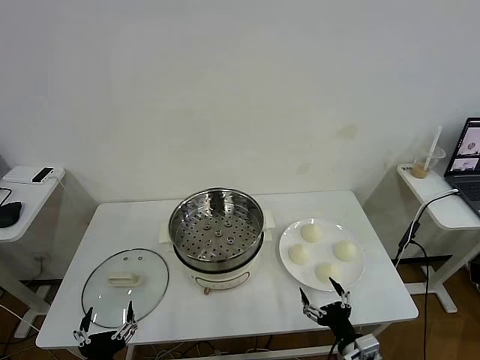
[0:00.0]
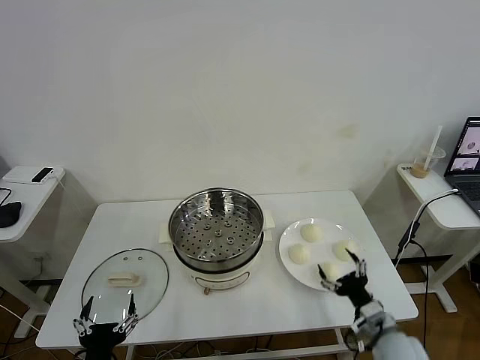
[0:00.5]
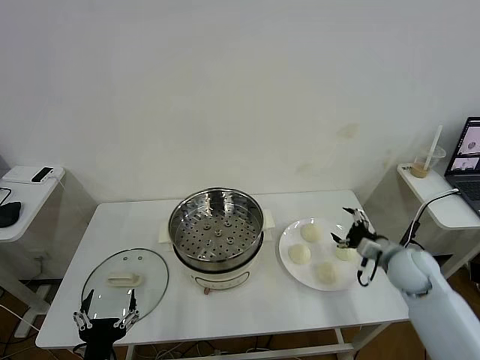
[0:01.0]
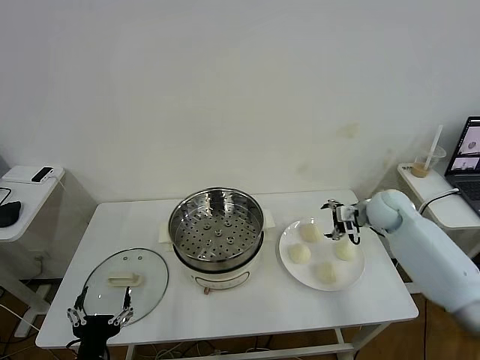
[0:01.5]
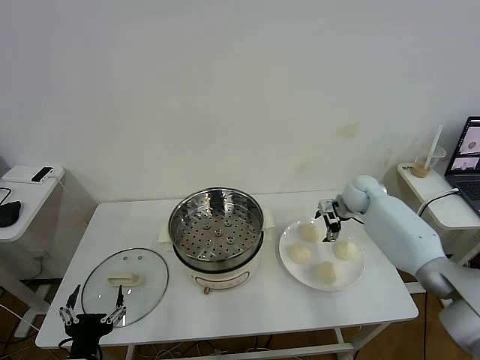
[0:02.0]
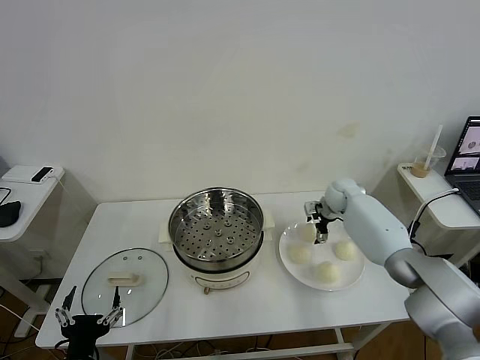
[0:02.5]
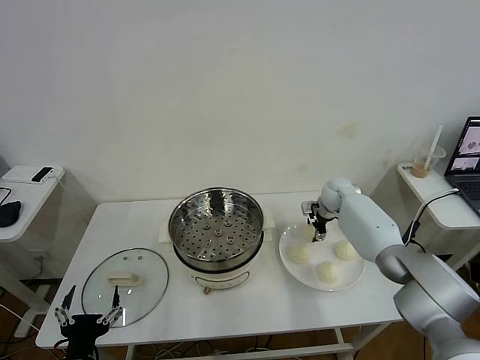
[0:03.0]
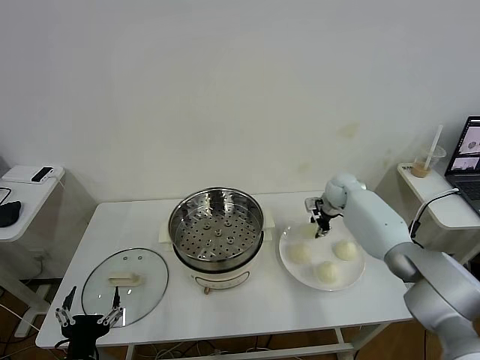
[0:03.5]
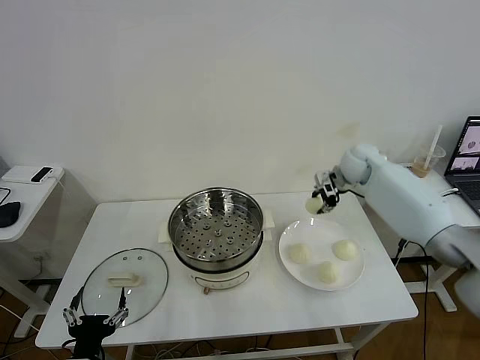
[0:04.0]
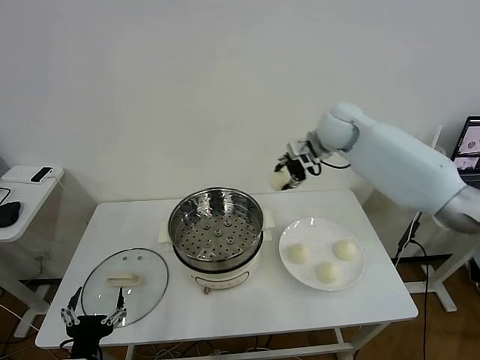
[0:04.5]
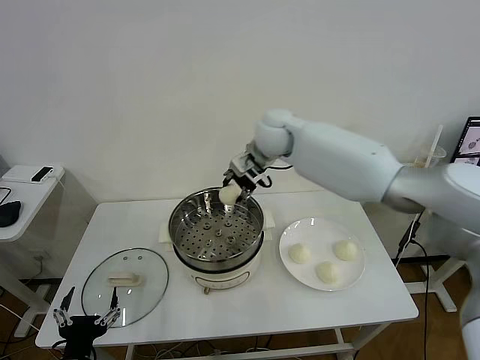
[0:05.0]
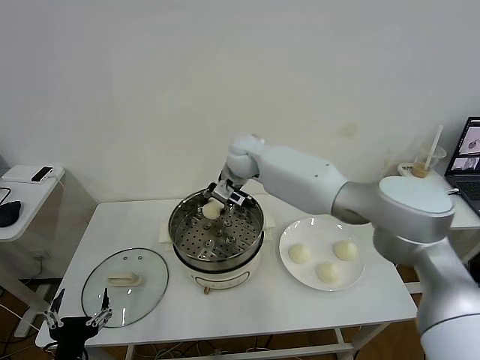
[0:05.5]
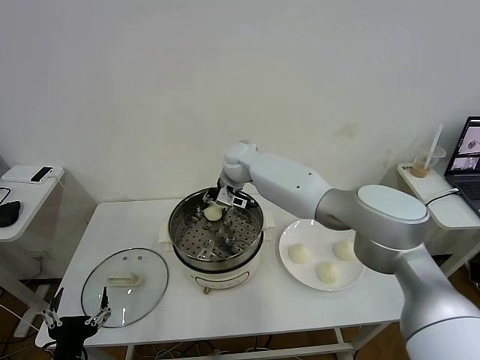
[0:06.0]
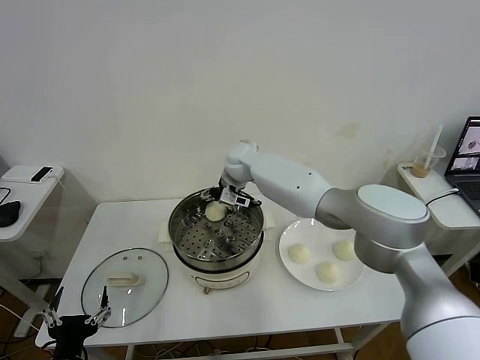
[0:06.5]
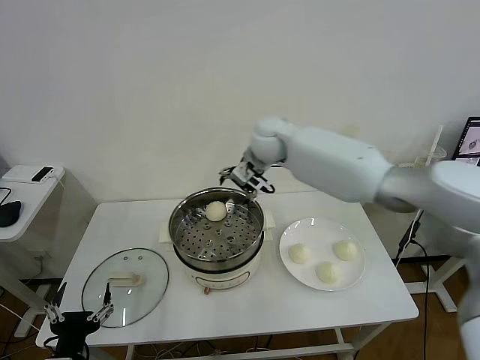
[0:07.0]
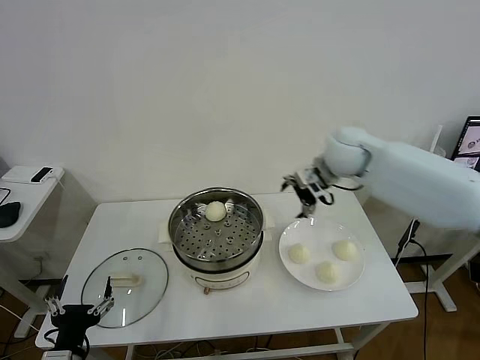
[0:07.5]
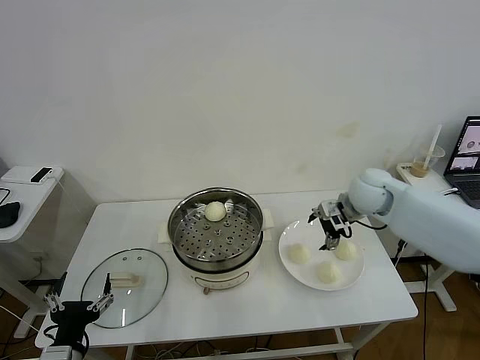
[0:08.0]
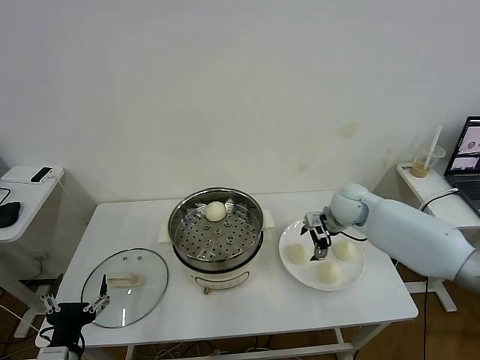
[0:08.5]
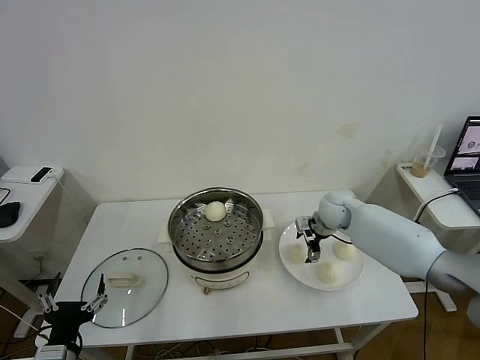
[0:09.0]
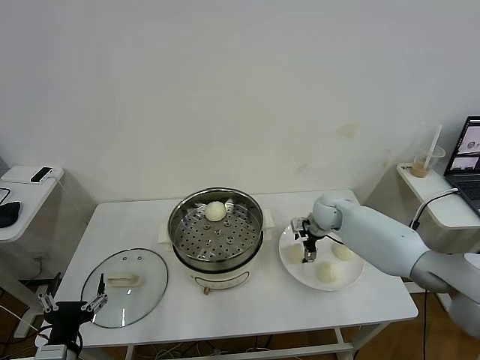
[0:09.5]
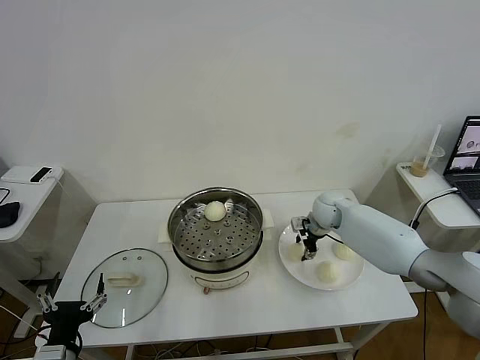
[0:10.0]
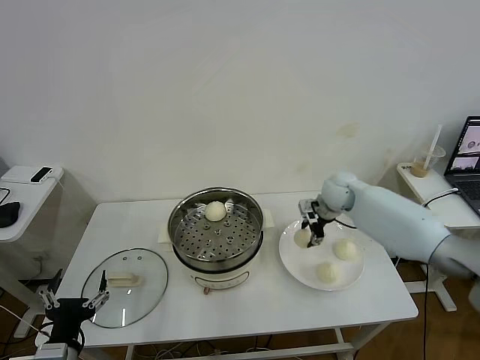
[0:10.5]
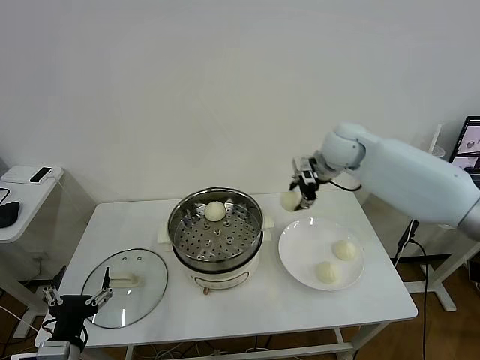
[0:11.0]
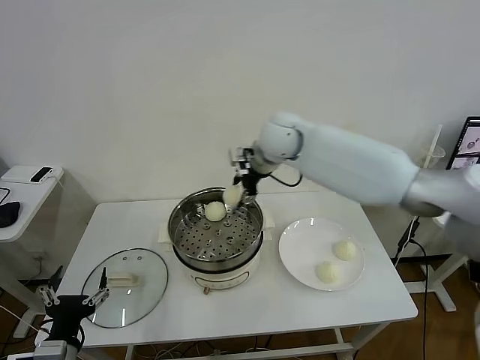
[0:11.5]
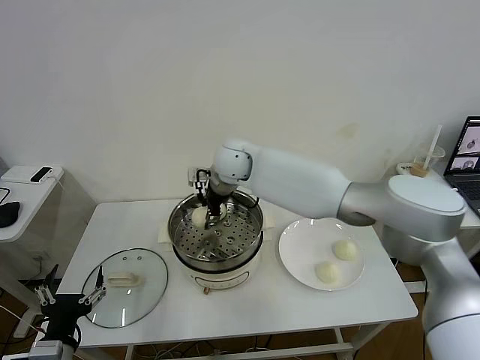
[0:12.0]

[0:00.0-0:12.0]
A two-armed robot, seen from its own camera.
Task of the whole recording: take steamed baozi put them in steamer then cover it.
Step, 0.0 to 3.0 s: Grasp the baozi in the plate with right gripper.
Step, 3.5 to 6.5 s: Place the baozi on the steamer with right gripper.
Step, 7.0 to 10.0 s: Grasp the baozi in the plate with right gripper.
2.0 to 4.0 s: The right gripper shifts approximately 15 cm upward, and closes.
4.0 to 6.0 s: The right gripper moves to the left, about 30 cm.
6.0 to 8.0 s: The right gripper goes about 30 cm to the right, and opens up.
8.0 to 10.0 s: The right gripper moves downward and forward, roughly 10 cm, and closes up.
10.0 to 12.0 s: The right gripper goes roughly 30 cm to the left and upward.

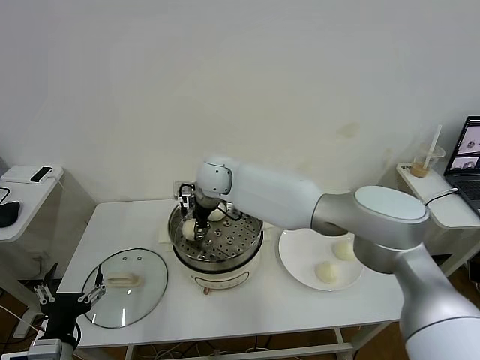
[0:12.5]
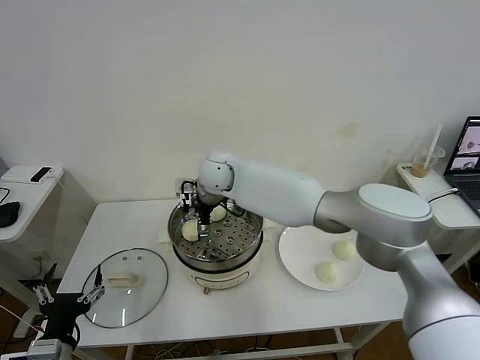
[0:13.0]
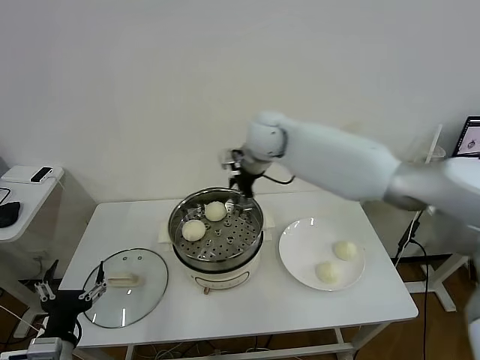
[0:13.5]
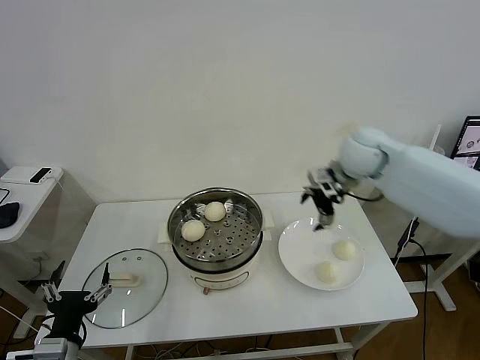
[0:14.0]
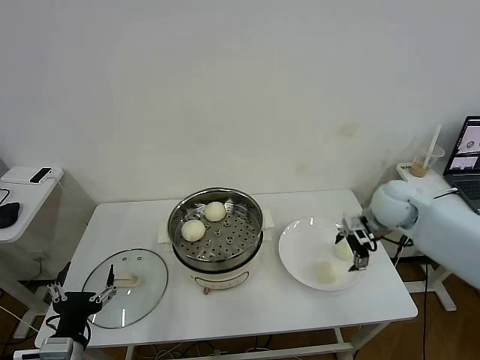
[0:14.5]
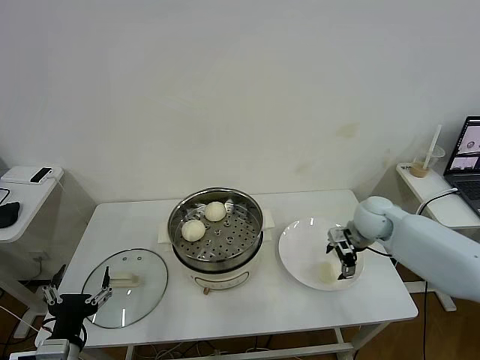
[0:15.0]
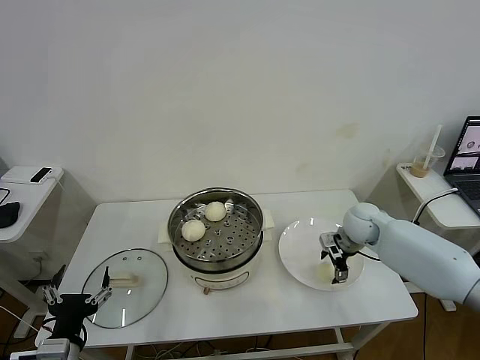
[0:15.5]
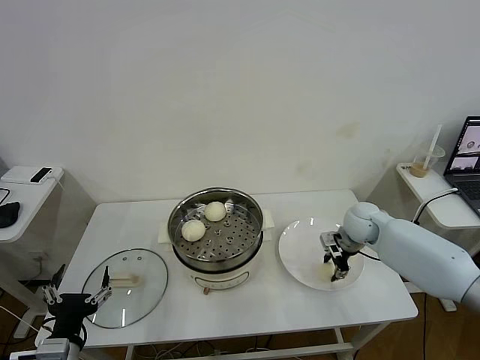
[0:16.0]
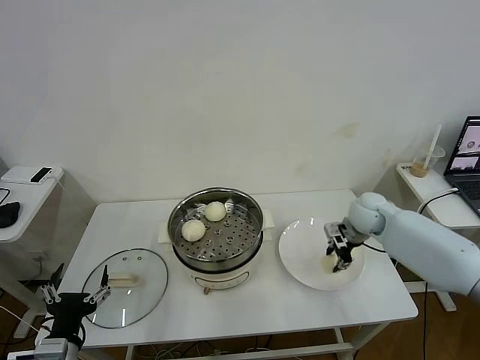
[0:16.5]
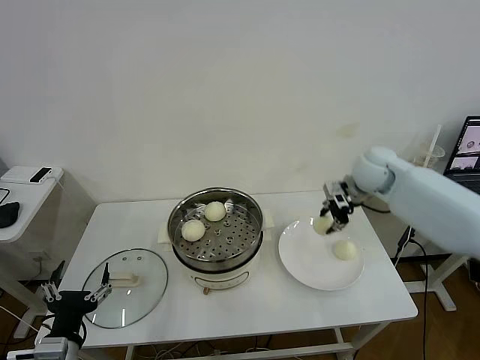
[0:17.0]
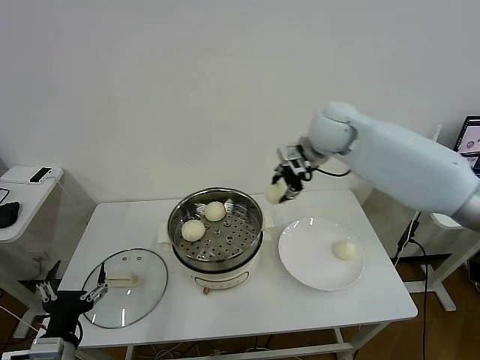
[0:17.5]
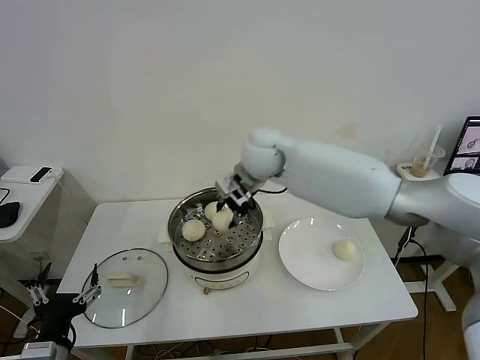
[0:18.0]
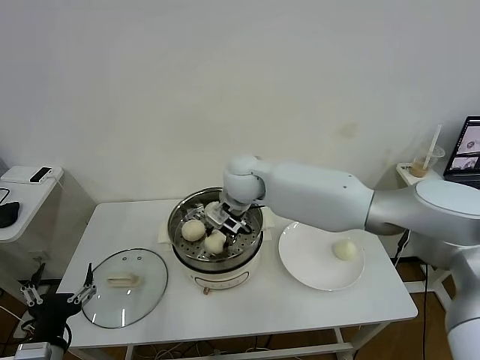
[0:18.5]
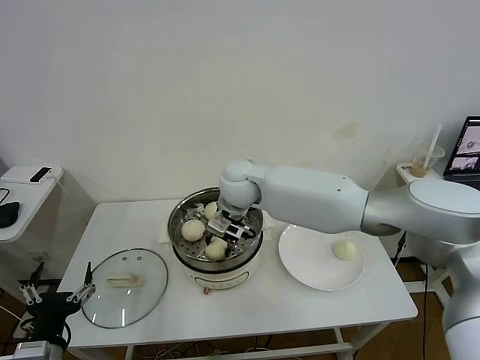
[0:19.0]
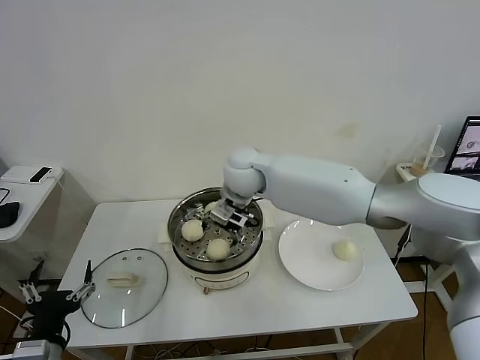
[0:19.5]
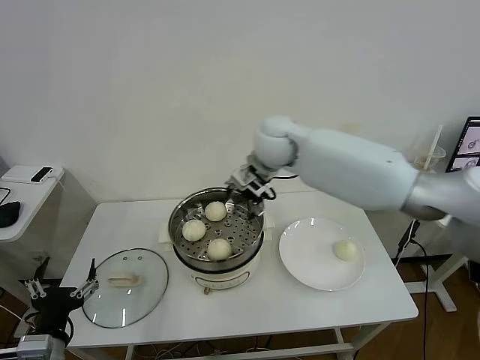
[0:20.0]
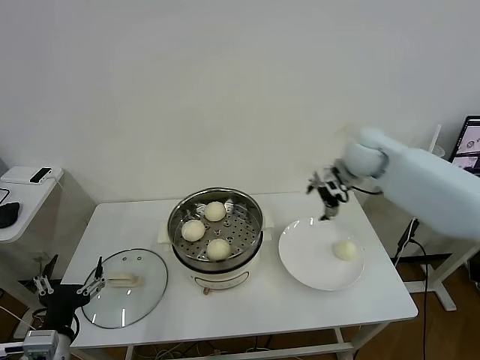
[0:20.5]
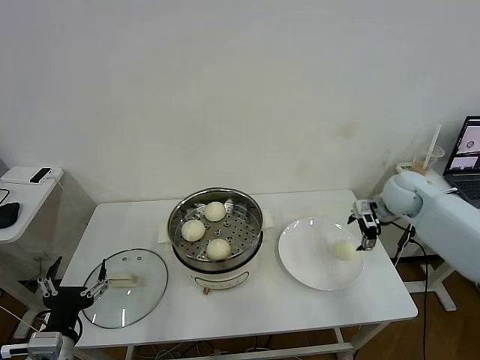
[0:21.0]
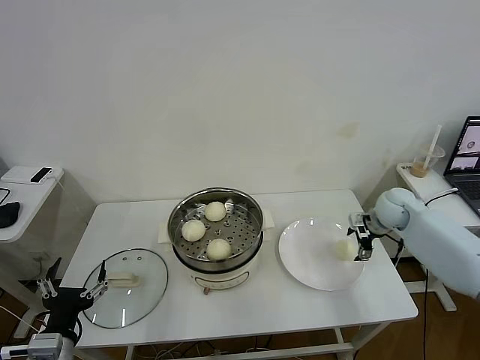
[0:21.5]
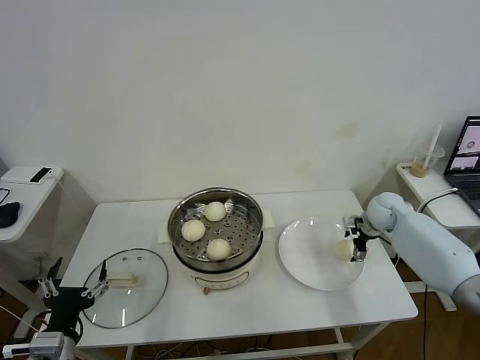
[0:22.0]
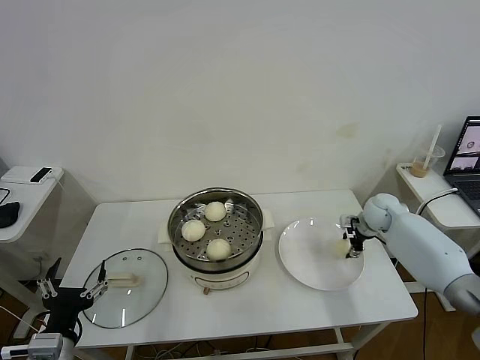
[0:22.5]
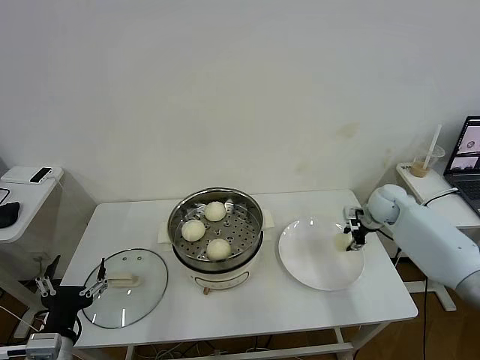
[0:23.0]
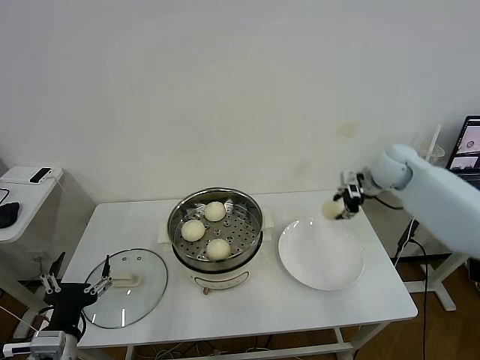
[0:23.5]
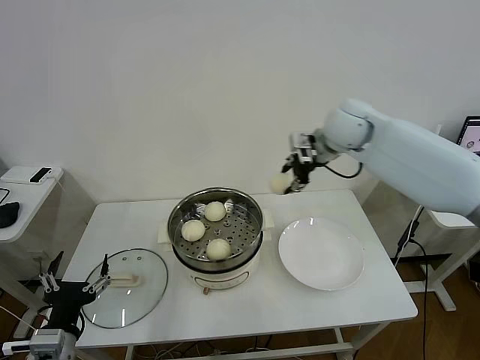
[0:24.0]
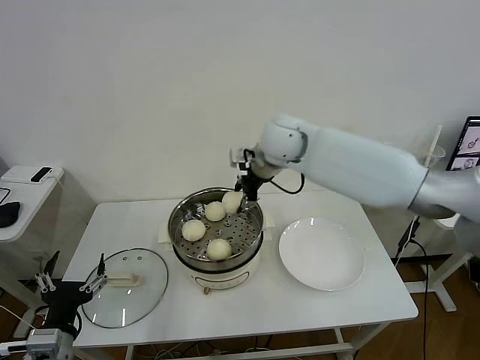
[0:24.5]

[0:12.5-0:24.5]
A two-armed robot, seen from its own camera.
Task of the whole recording: take steamed baozi put them in steamer then cover it.
Step, 13.5 to 16.0 s: Grasp the baozi in the plate with right gripper.
Step, 16.5 to 19.5 s: Place the baozi on the steamer with right gripper.
Step, 20.0 to 22.5 s: Grasp the baozi in the plate with right gripper.
12.5 to 14.5 s: The right gripper shifts approximately 40 cm to the right, and opens its fingers.
14.5 to 16.5 s: The right gripper changes place by roughly 5 cm, and closes its fingers.
16.5 to 18.5 s: The right gripper heads to the left, covering some 30 cm.
18.5 to 20.5 s: The right gripper goes some 30 cm to the right, and opens.
20.5 to 22.5 s: The right gripper is displaced downward and to the right by approximately 20 cm, and closes.
22.5 to 24.5 s: The right gripper travels to the left and upward by roughly 35 cm.

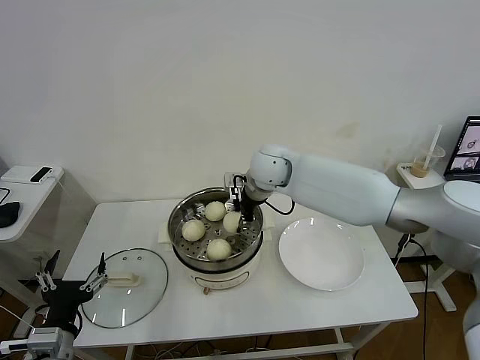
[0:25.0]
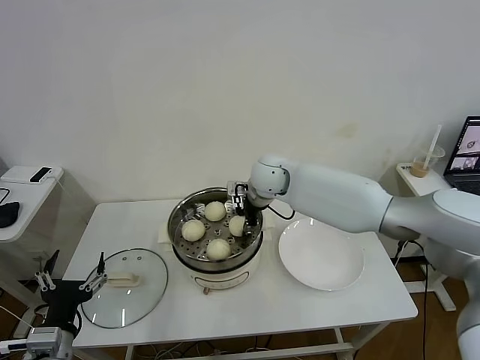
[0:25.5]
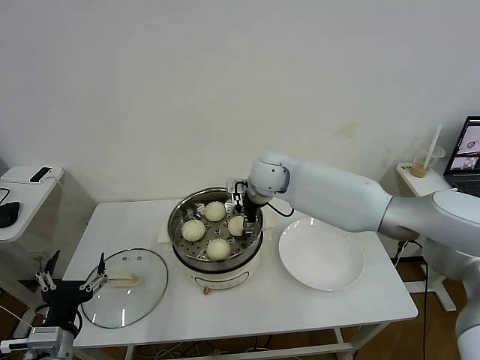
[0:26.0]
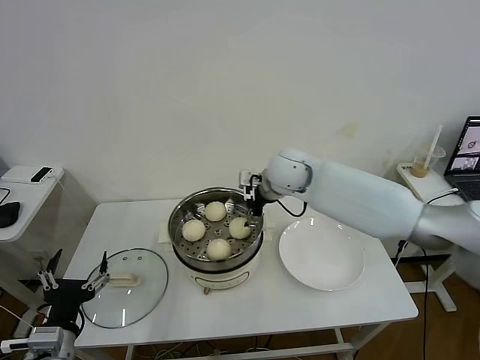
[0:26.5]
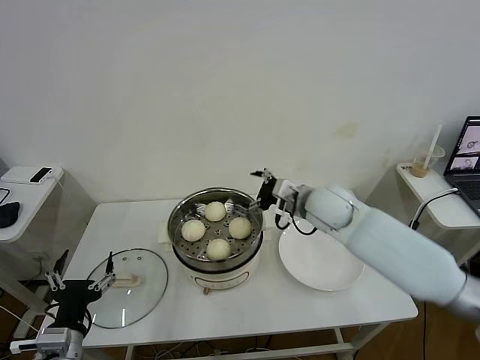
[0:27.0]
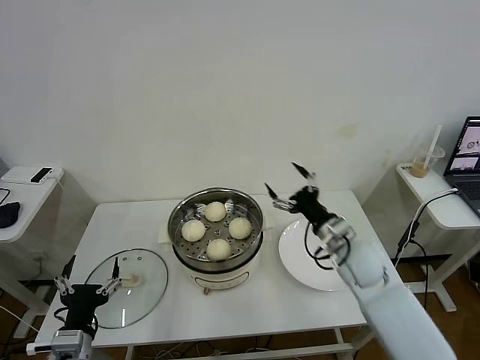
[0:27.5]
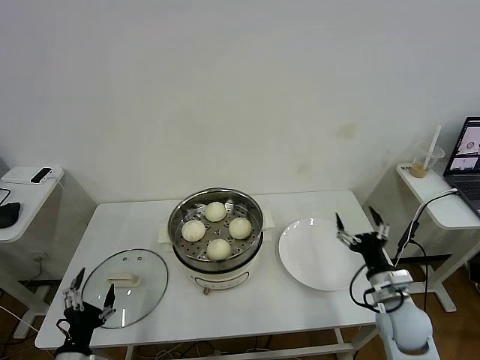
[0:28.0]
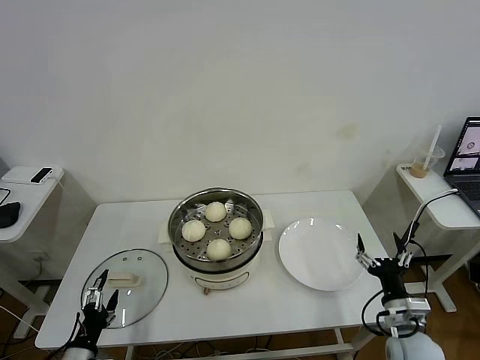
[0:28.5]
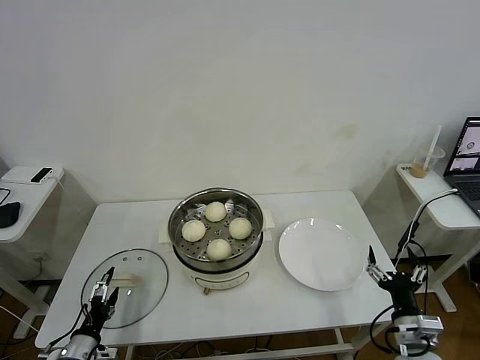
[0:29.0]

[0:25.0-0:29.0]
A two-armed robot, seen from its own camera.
Task of the whole recording: take steamed baozi put them in steamer then cover it.
25.0 to 27.0 s: The right gripper goes about 15 cm to the right and backward, and opens up.
27.0 to 29.0 s: The right gripper moves backward, downward and to the right, some 35 cm. Meanwhile the left gripper shifts about 15 cm downward and to the left.
